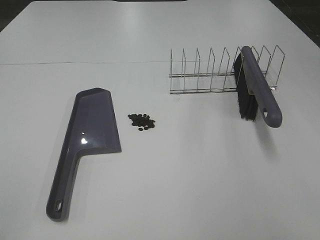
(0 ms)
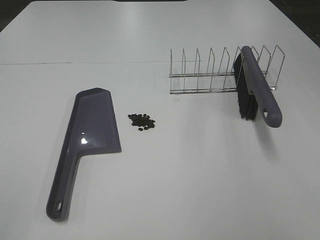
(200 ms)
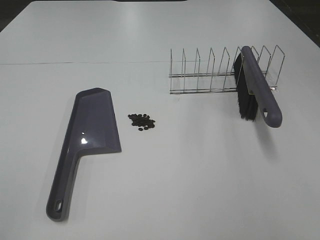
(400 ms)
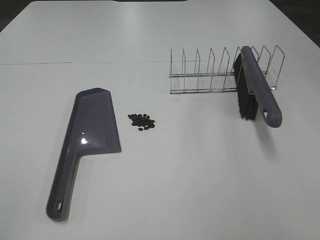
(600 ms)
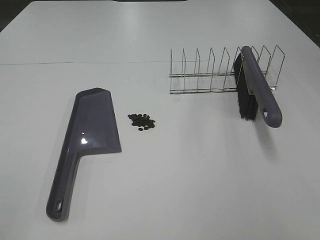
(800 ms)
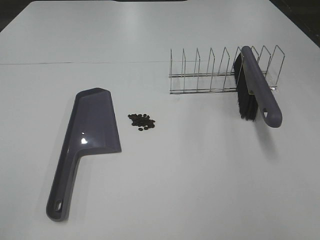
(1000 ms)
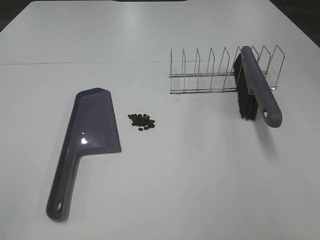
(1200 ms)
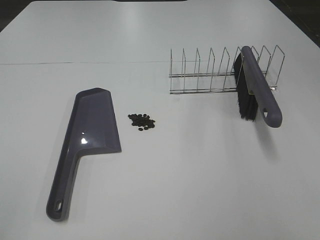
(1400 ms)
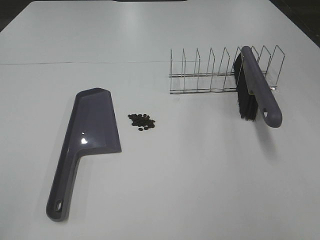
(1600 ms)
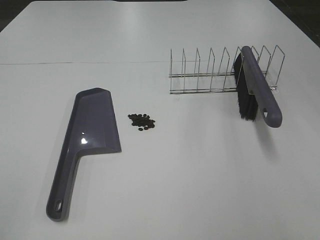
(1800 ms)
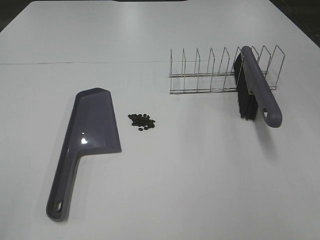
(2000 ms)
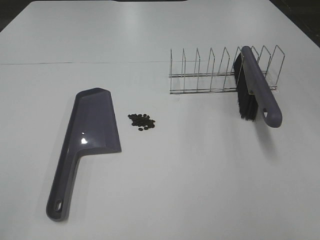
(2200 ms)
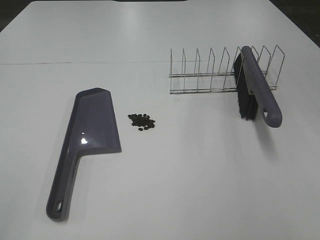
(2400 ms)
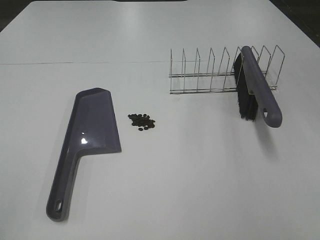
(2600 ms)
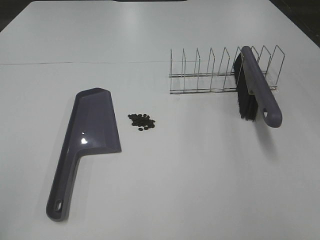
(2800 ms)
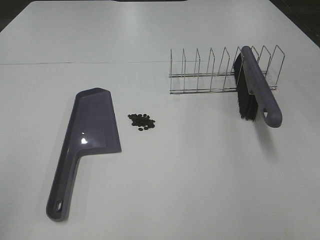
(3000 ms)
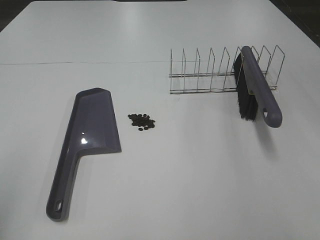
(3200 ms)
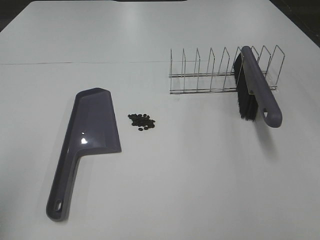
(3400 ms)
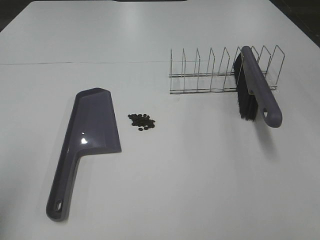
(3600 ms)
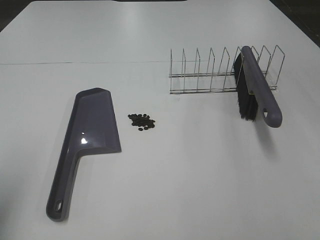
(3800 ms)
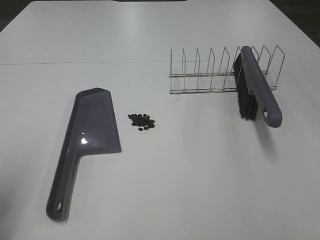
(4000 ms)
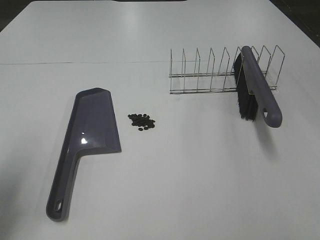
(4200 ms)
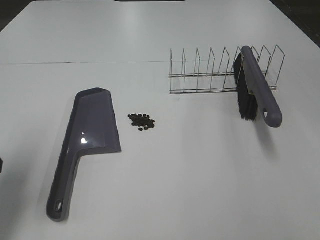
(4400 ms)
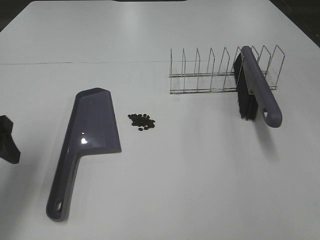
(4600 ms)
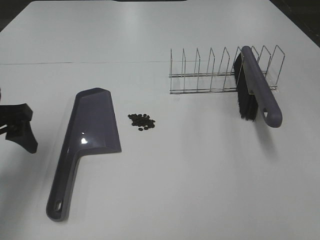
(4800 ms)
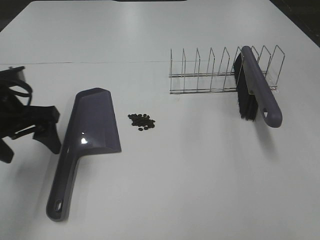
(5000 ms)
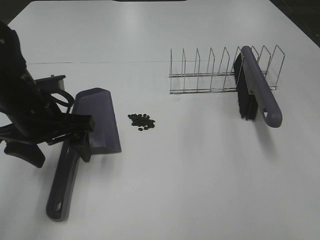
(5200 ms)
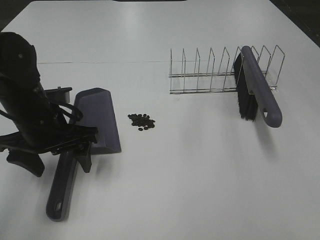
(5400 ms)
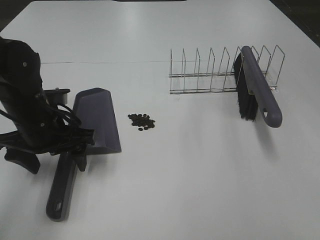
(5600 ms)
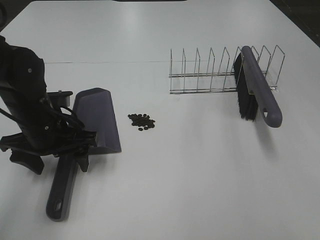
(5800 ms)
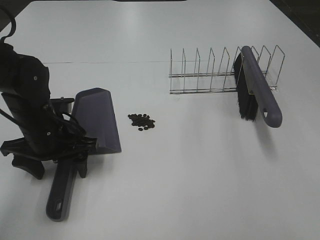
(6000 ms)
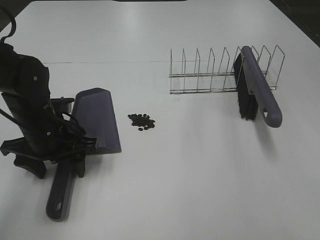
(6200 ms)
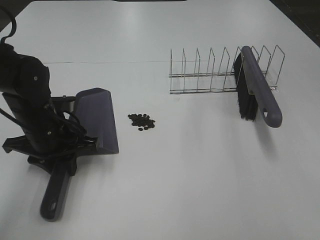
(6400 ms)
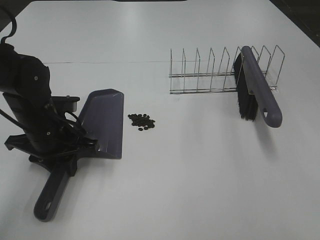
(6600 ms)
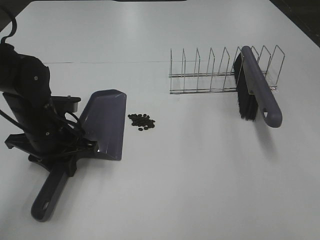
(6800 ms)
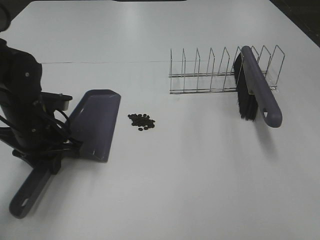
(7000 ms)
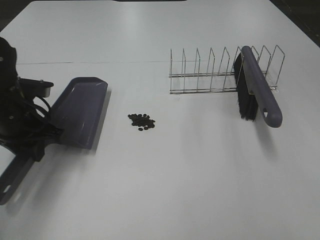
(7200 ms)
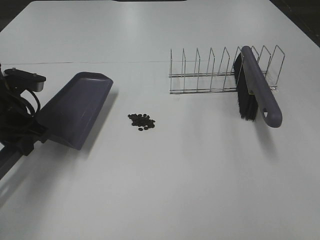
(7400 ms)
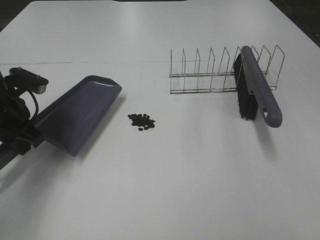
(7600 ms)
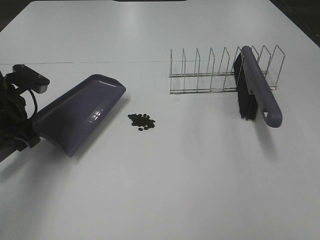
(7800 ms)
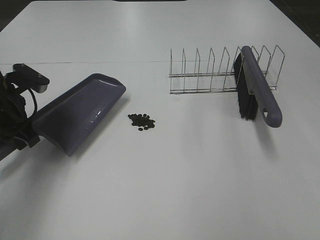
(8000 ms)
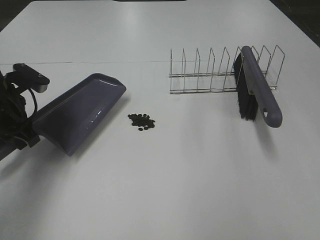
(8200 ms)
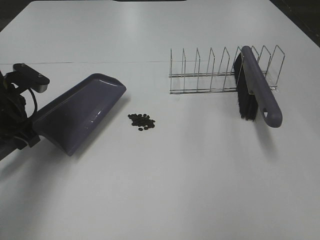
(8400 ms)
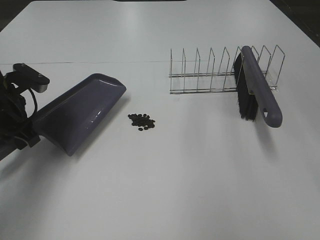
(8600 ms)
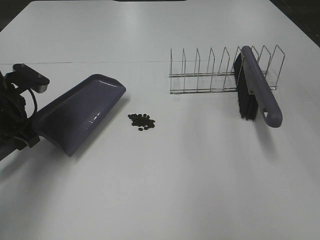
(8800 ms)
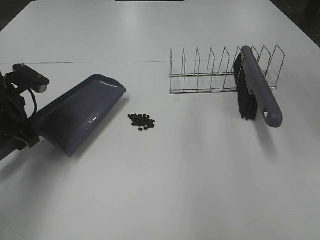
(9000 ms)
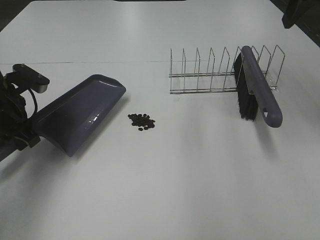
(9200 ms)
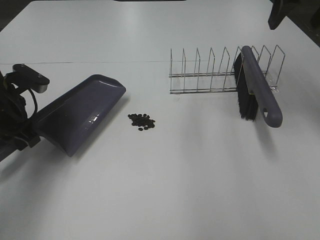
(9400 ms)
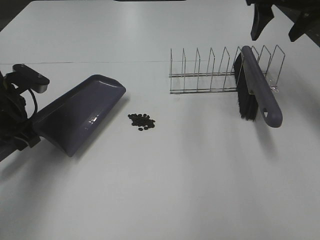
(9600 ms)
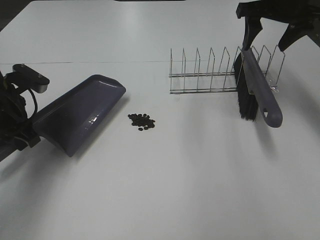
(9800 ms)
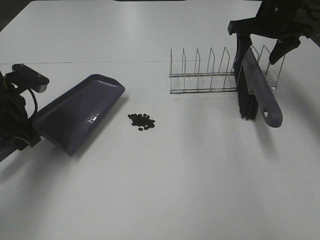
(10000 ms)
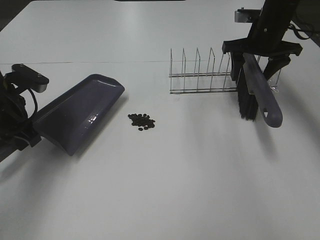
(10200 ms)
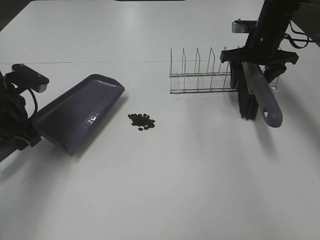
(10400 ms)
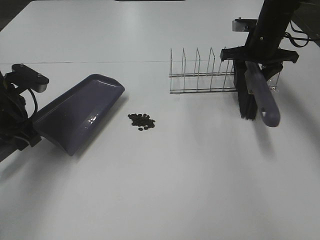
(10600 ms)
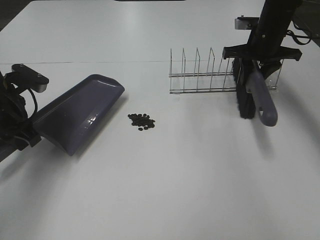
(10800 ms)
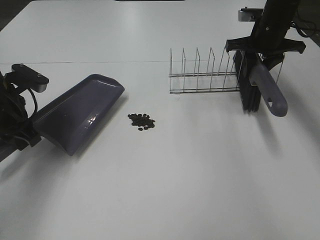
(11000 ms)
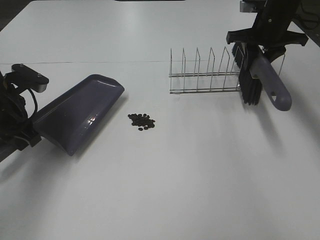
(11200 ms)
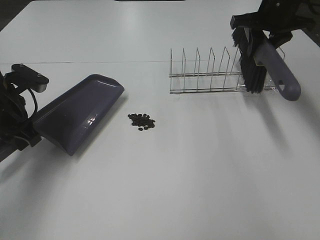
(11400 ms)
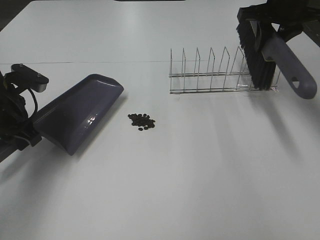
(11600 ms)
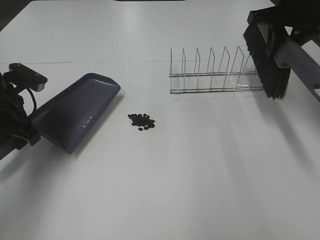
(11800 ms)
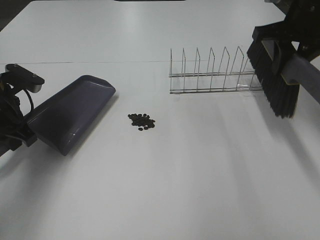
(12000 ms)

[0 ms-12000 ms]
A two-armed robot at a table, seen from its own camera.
Task of the whole recording: Sweep Coffee Bean.
Step, 0 ms to 6400 ms: Left hand: grab the dustpan.
Step, 7600 ms to 10800 ms: Right hand:grab the broom.
0 ms to 1600 ms: The two grippers keep their place.
3000 ms to 4400 ms: The left gripper goes approximately 15 cm forward and downward.
4400 ms to 6000 ms: The left gripper moves to the right, forward and downward, some 20 cm.
6000 ms to 7600 ms: The left gripper is displaced to the left by about 5 cm, and closes.
7600 ms to 9000 ms: The right gripper moves forward, some 30 cm.
9000 ms to 10400 ms: The right gripper moves downward and forward, approximately 25 cm.
10400 ms to 12000 ms: The right gripper heads upward and backward, covering about 15 cm, and closes.

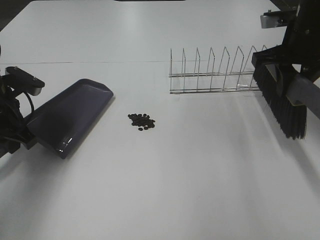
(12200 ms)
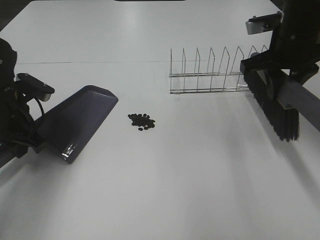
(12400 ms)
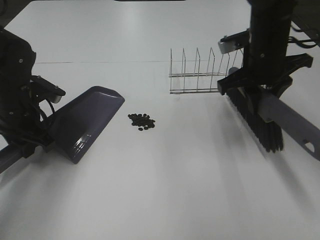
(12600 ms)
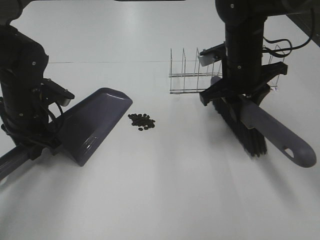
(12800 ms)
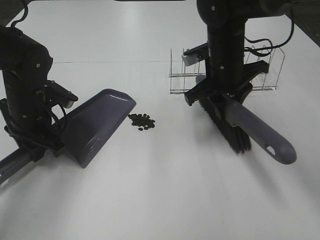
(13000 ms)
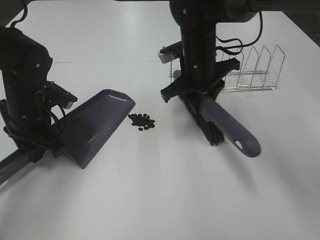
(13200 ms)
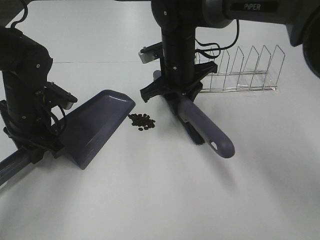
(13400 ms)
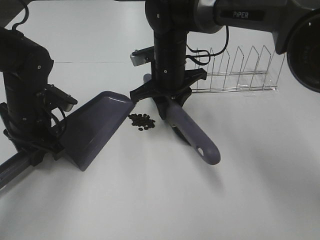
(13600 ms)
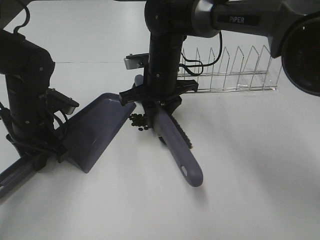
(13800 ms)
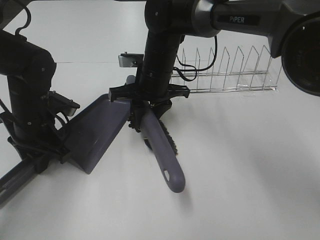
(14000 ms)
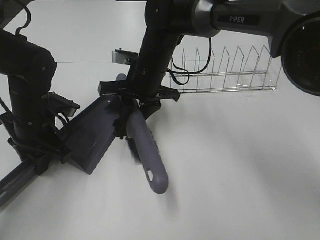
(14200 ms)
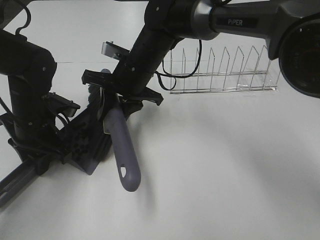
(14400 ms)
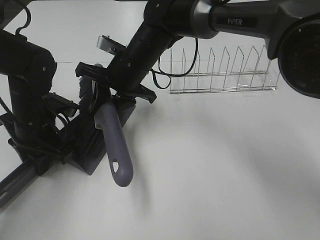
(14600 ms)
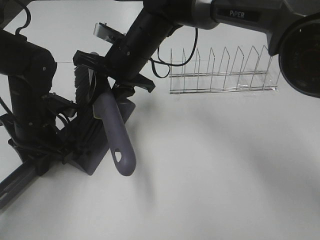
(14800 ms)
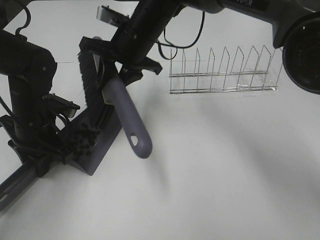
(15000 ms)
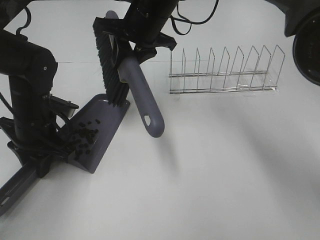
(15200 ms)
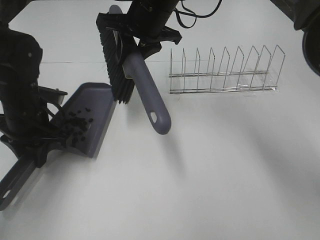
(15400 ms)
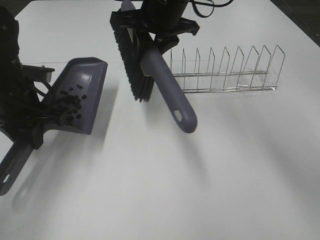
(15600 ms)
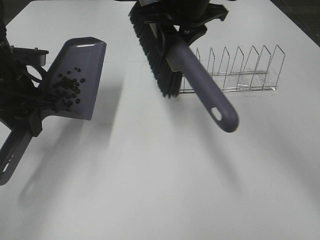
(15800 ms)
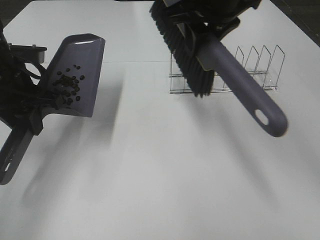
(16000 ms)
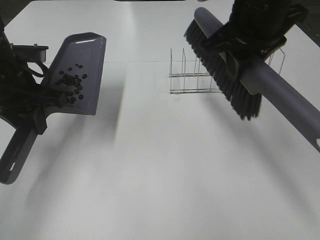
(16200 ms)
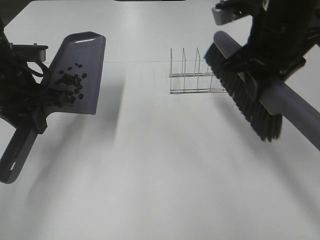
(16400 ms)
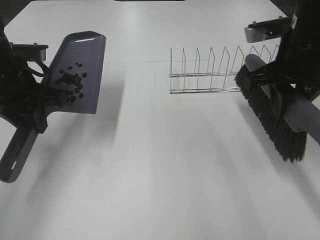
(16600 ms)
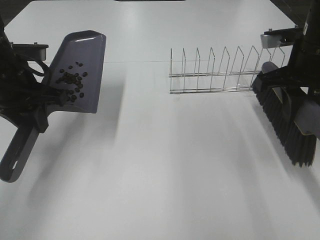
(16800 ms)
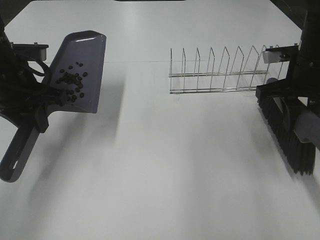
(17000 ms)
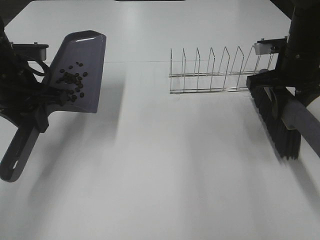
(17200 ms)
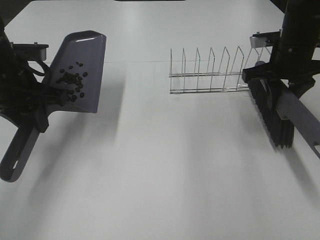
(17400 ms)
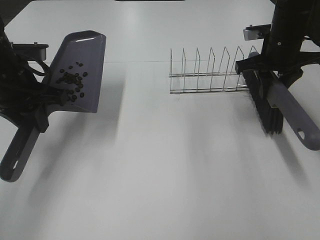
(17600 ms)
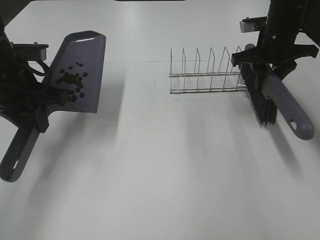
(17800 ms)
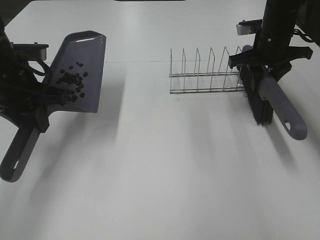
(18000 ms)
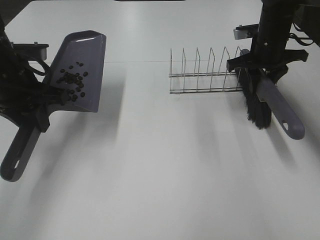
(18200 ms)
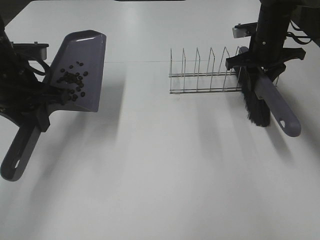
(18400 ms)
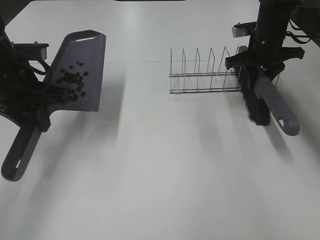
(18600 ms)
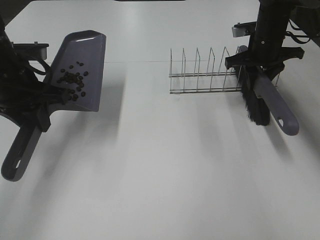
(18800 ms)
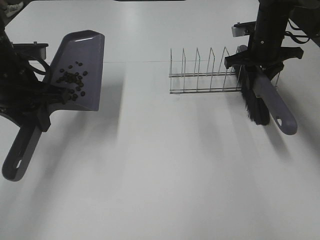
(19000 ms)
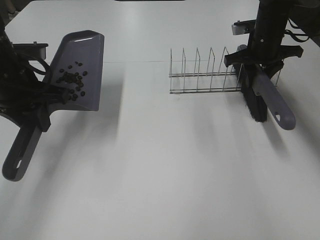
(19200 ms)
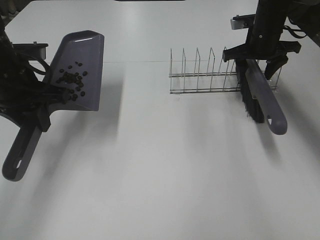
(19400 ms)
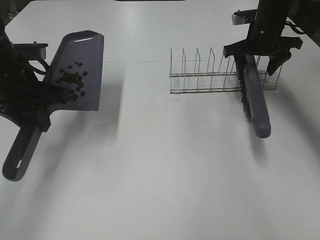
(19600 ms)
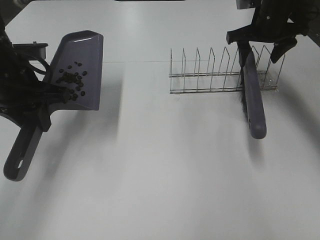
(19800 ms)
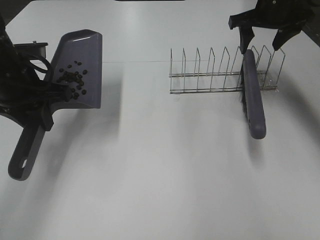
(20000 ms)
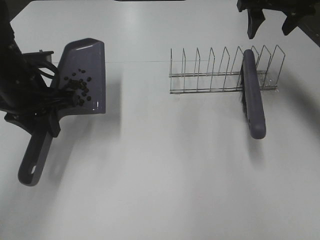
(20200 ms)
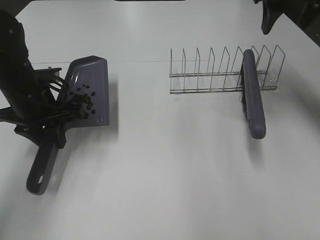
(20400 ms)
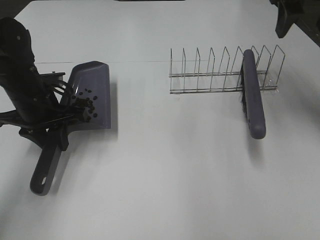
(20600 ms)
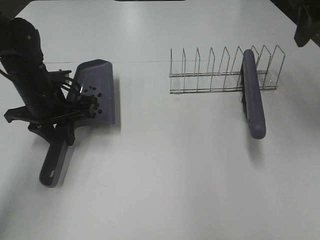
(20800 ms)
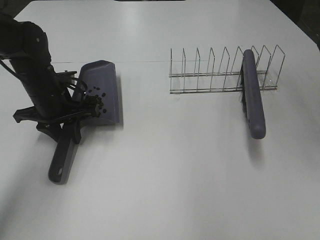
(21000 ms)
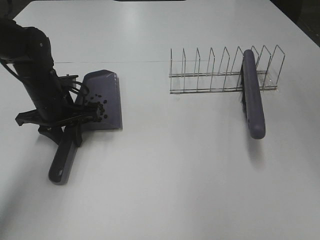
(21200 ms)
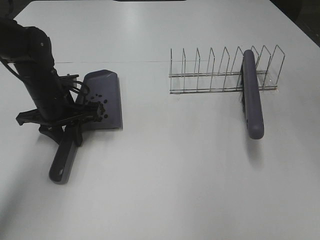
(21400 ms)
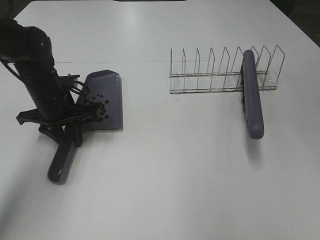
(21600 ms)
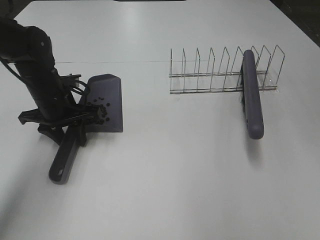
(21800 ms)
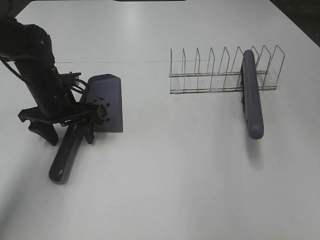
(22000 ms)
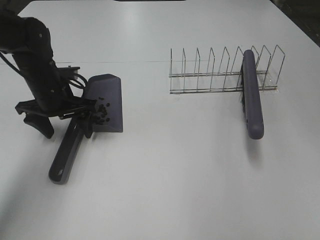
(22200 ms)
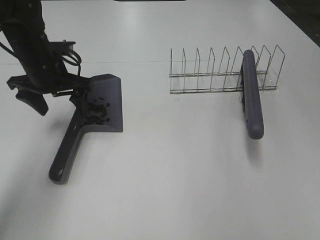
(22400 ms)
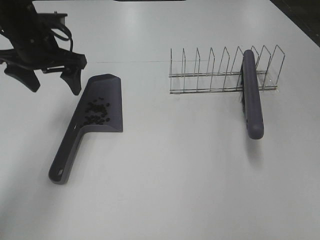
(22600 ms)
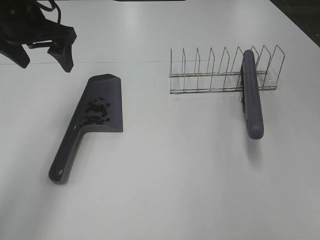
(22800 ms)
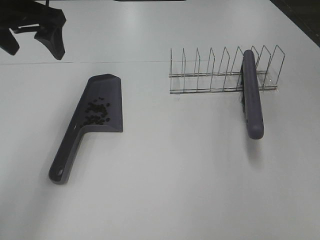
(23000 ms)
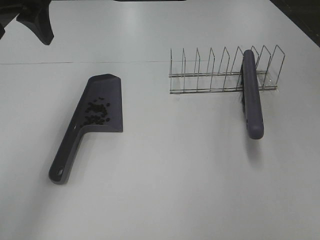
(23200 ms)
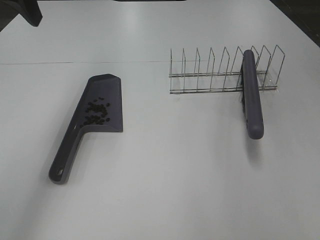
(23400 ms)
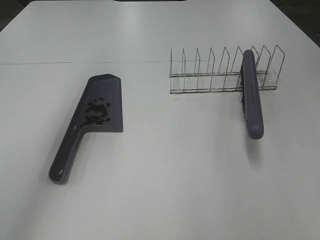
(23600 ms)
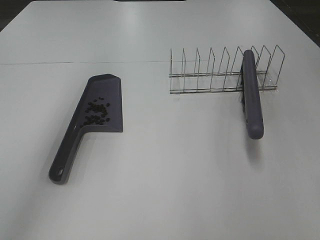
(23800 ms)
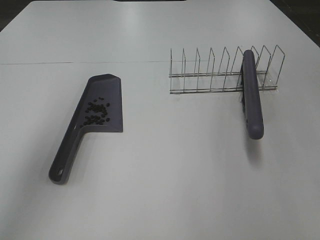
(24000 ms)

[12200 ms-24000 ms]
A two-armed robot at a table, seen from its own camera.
Task of the whole recording: Sweep Coffee Bean.
Step, 12200 ms to 15000 ms: Right hand:sweep the coffee beans into the dustpan.
Step, 15200 ms to 19200 ms: Right hand:place the broom on the rack.
Step, 19400 ms to 21800 ms: Left hand:place the dustpan on the table.
12200 ms to 13600 ms: The left gripper changes place by roughly 5 cm. The right gripper goes some 25 cm to the left and downward.
13600 ms to 15200 ms: The right gripper moves upward, approximately 10 cm.
15200 ms to 16600 ms: The right gripper is displaced to the right and backward by roughly 25 cm. The left gripper moves upward, approximately 10 cm.
16600 ms to 18200 ms: The right gripper is displaced forward and downward by about 15 cm.
18200 ms to 19600 ms: The right gripper opens its fingers.
19600 ms to 21000 ms: The left gripper travels downward and forward by about 10 cm. The right gripper is displaced backward and upward by some 30 cm.
21000 ms to 22600 ms: The right gripper is displaced backward by some 20 cm; the left gripper moves upward, approximately 10 cm, and opens up.
22600 ms to 24000 ms: The left gripper shifts about 25 cm upward and backward, while the right gripper moves downward and backward, roughly 10 cm.
